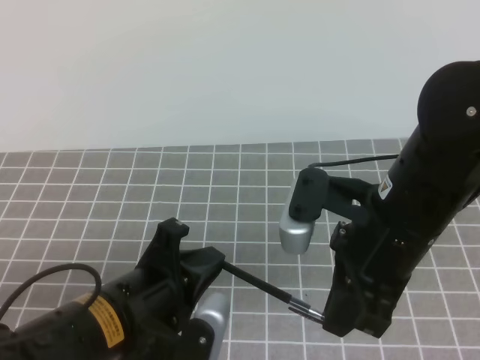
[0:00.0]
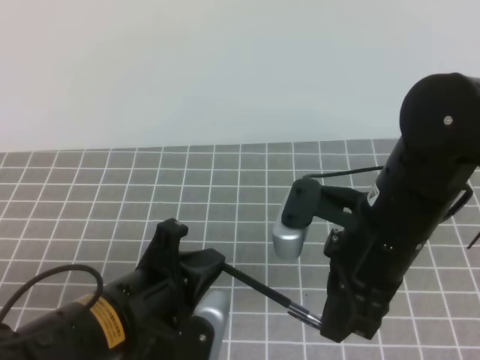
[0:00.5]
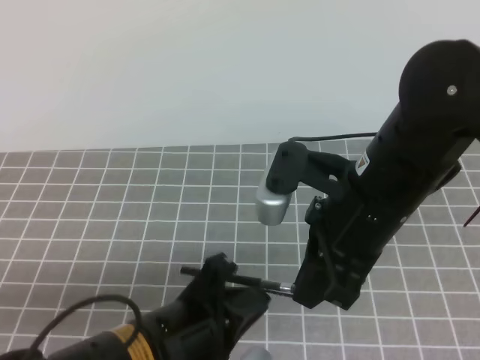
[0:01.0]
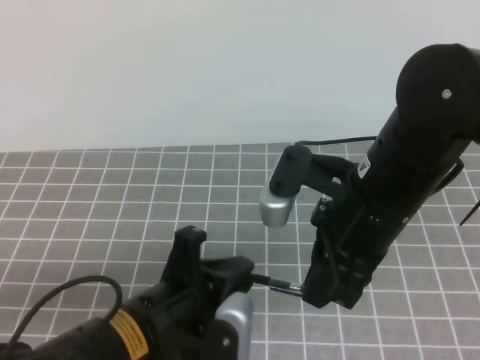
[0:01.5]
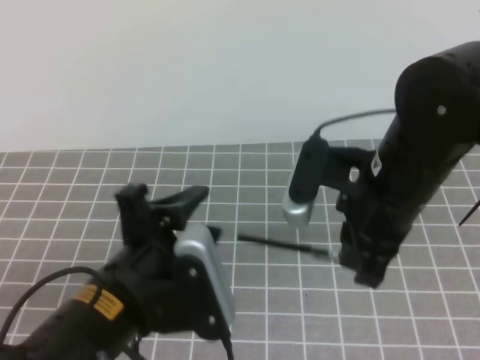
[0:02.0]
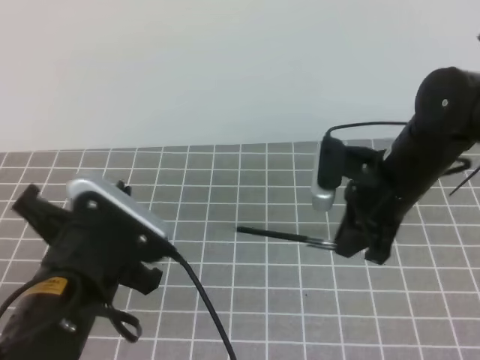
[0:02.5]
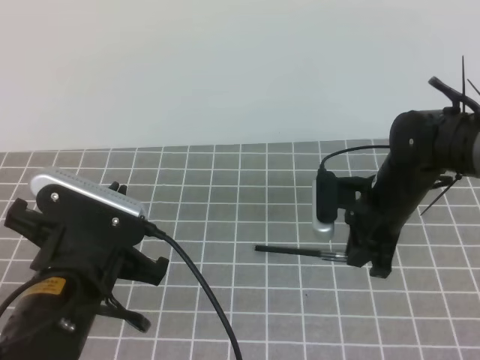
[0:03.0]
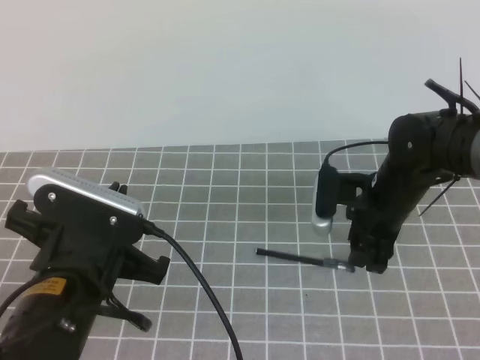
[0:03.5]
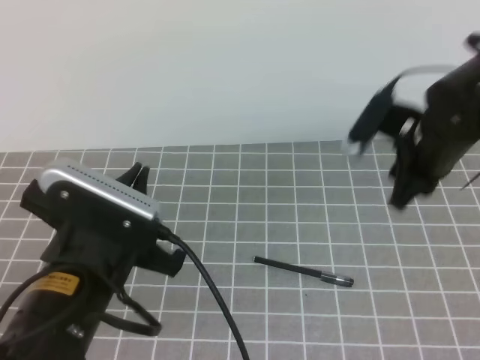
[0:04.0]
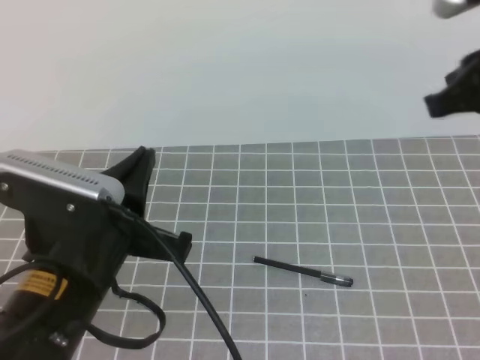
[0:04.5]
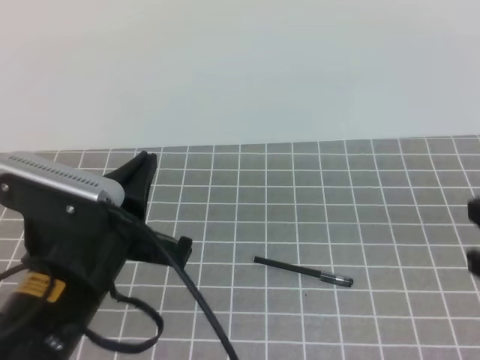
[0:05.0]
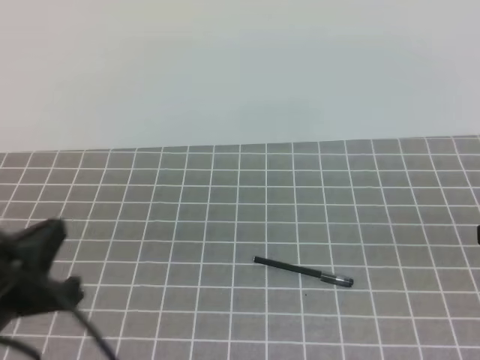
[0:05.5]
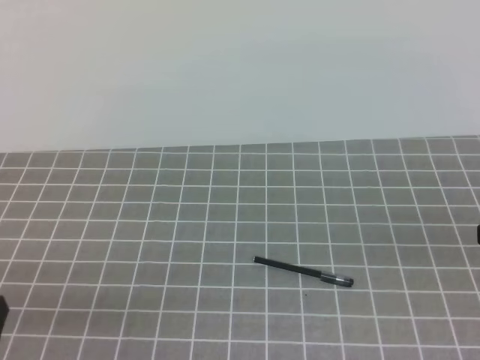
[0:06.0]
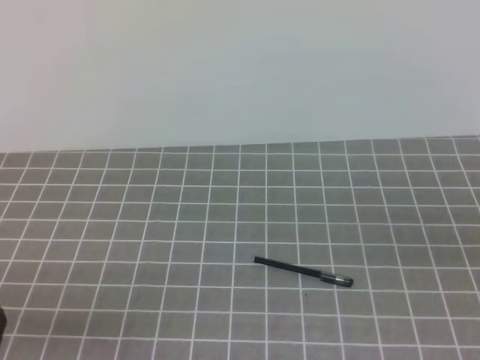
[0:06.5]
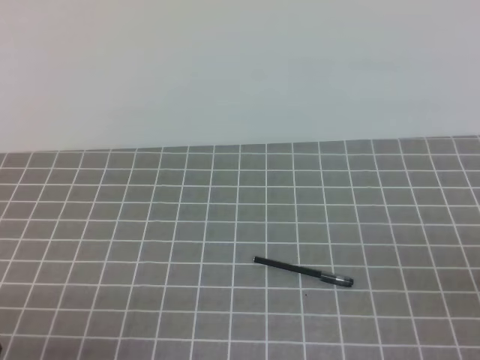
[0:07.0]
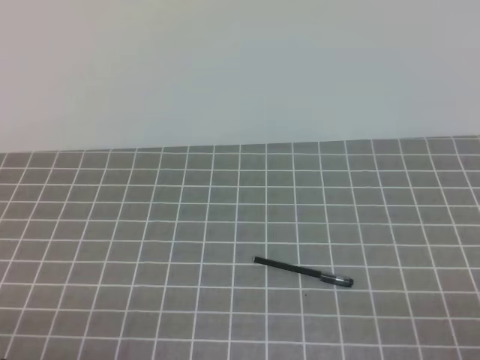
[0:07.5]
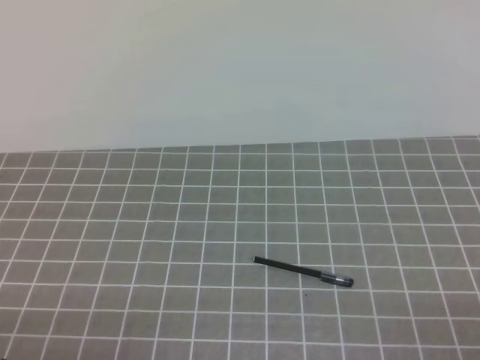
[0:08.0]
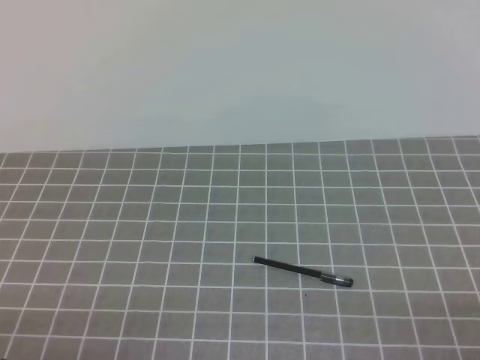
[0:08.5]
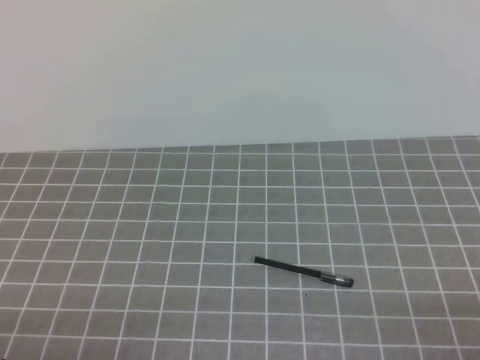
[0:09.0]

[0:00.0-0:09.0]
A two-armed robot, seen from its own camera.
Task of the whole recording: on the grey tablecloth, hold the pen cap in one hand and the pen in the other, then cover the pen cap.
Step, 0:00.0 to 0:09.0: Put the cap on the pen.
0:00.0 to 0:02.0: The left gripper opens.
0:02.0 to 0:04.5: The left gripper closes, while the right gripper goes about 10 cm to the right and upward, and opens, then closes once more.
0:04.5 to 0:07.0: The left gripper goes approximately 20 cm to the left, backward and downward, while the right gripper shifts about 25 cm backward, to the right and downward.
